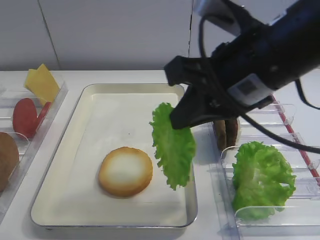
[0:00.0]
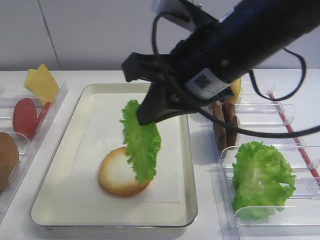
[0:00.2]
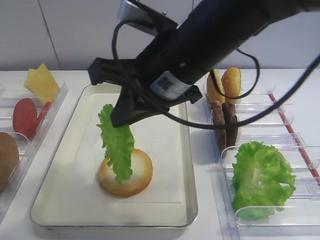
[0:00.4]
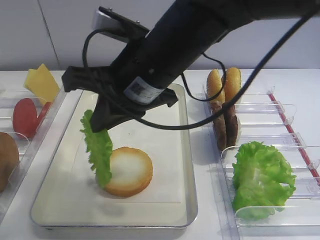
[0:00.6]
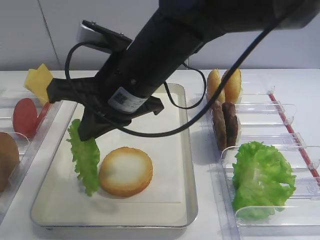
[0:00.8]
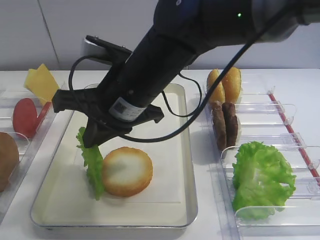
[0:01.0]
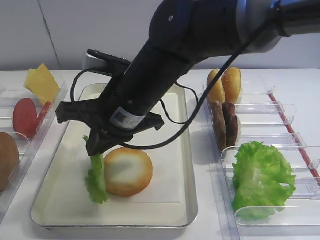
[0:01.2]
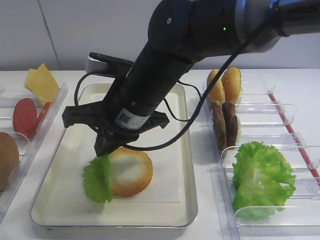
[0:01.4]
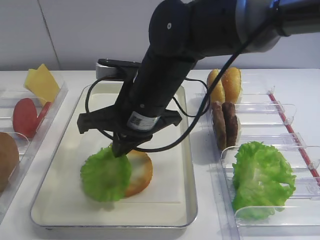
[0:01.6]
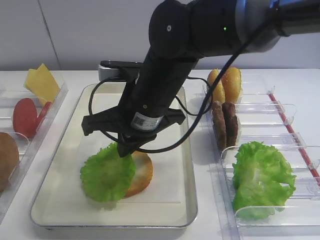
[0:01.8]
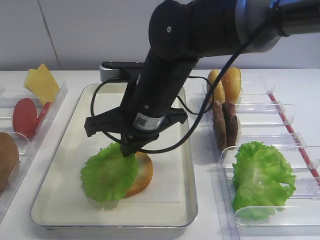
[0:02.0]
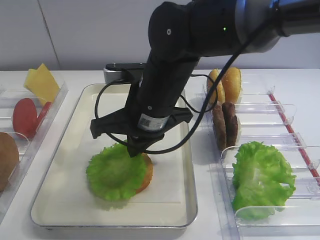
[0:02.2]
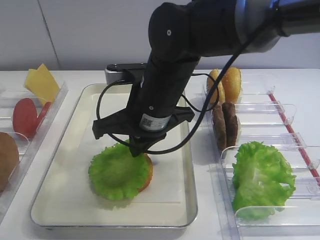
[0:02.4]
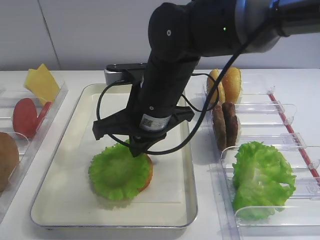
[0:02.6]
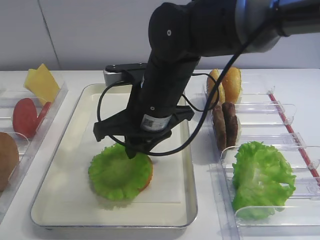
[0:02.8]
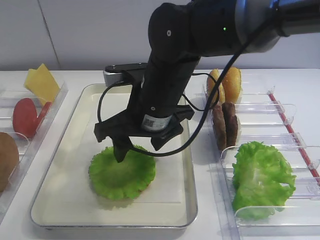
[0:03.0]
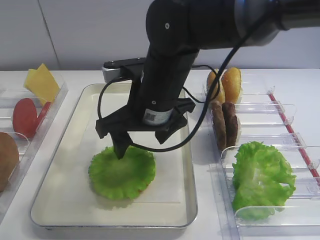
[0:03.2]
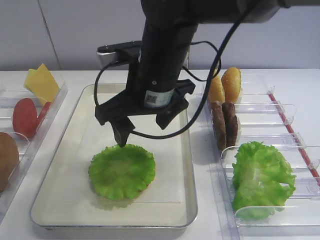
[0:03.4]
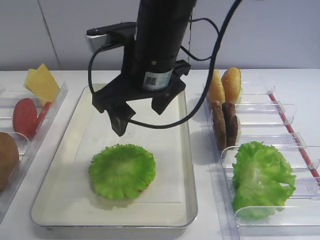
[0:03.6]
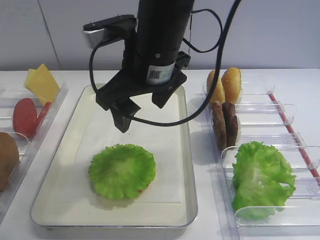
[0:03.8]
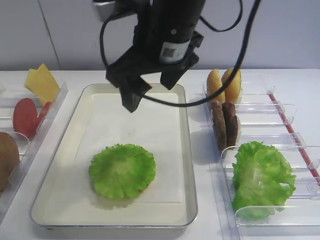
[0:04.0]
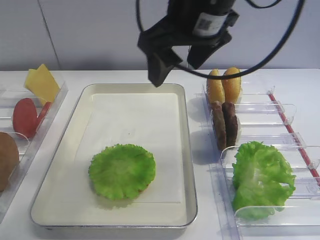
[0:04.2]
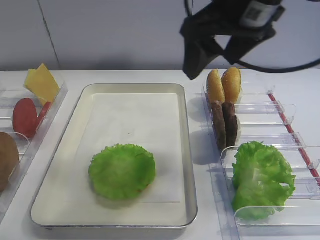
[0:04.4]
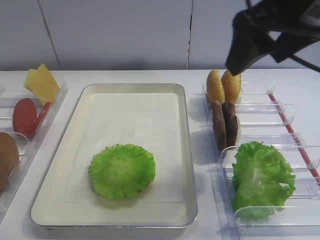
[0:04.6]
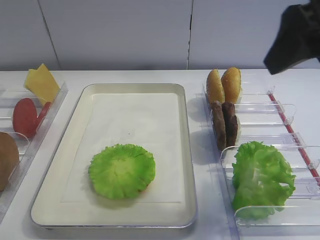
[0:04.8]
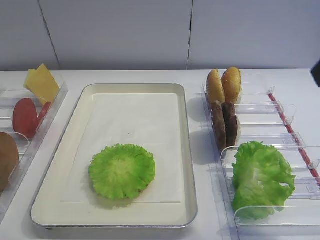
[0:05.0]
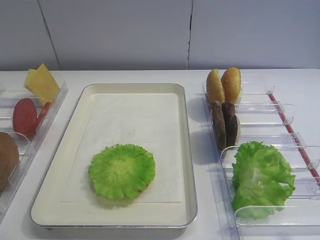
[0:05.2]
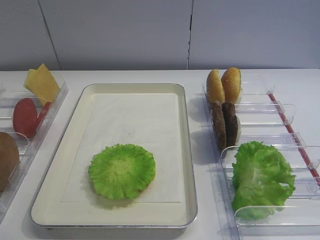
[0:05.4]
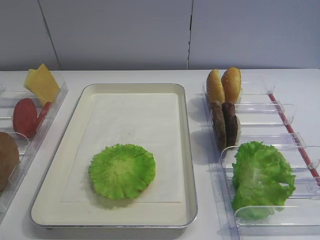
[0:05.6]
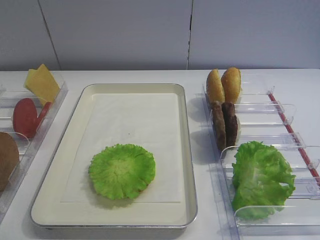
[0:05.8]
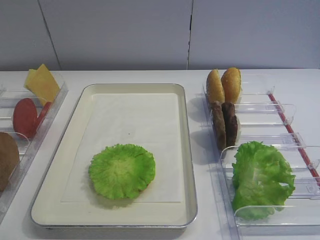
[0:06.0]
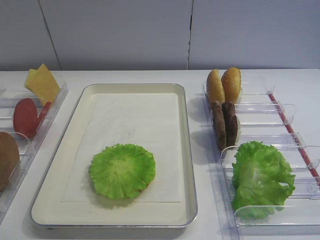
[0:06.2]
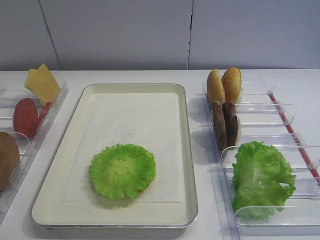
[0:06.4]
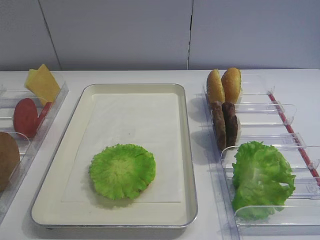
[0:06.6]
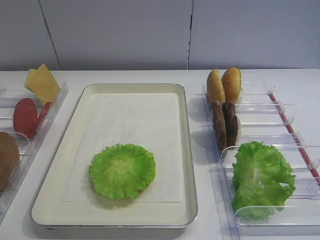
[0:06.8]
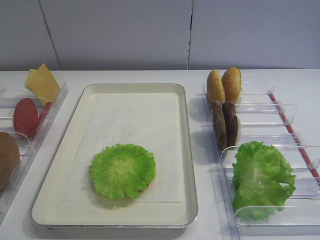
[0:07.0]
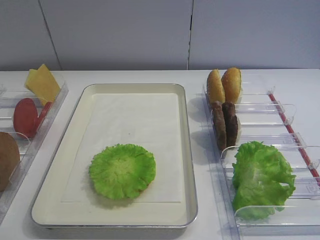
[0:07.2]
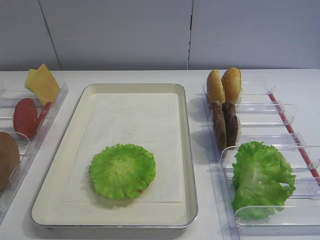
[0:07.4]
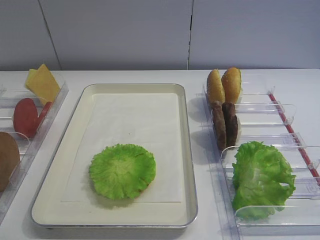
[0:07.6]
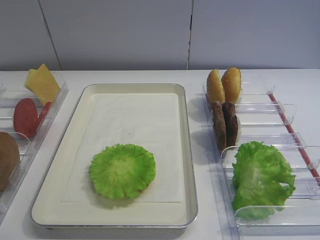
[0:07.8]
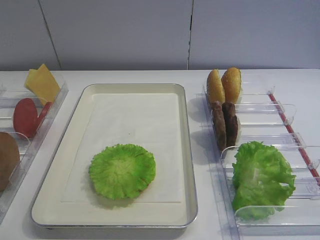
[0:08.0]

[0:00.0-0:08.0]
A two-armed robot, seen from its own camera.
Step, 0:00.0 to 0:03.4: Place the lettuce leaf on the bread slice with the right gripper.
0:00.0 to 0:01.6: The right gripper goes about 15 cm to the left, downward and forward.
0:01.6 to 0:03.2: The right gripper opens up.
0:03.2 to 0:04.8: The right gripper travels to the right and upward by some 25 cm.
0:04.8 to 0:06.4: The right gripper travels backward and downward by about 25 cm.
0:06.4 to 0:08.0: Both grippers stay put.
